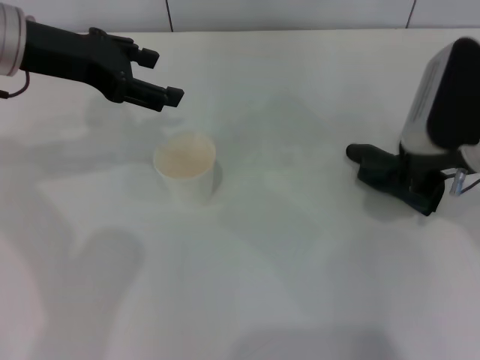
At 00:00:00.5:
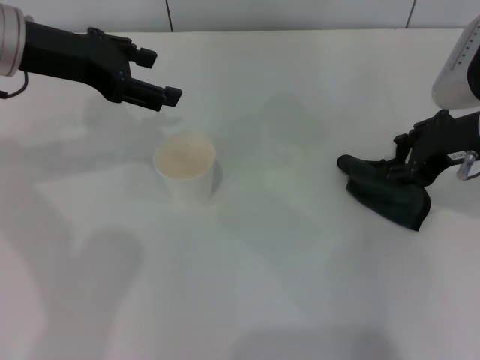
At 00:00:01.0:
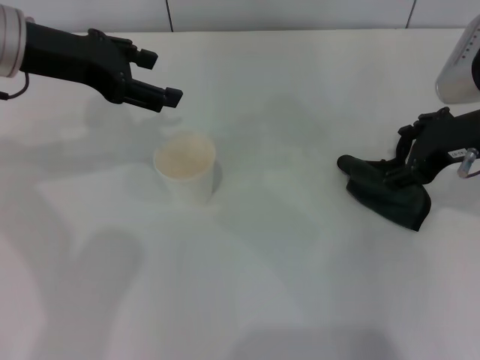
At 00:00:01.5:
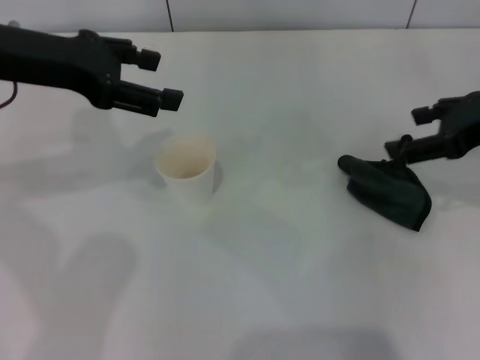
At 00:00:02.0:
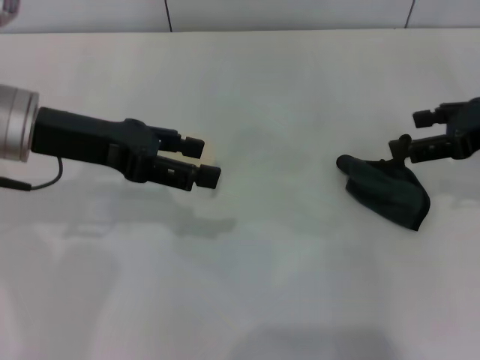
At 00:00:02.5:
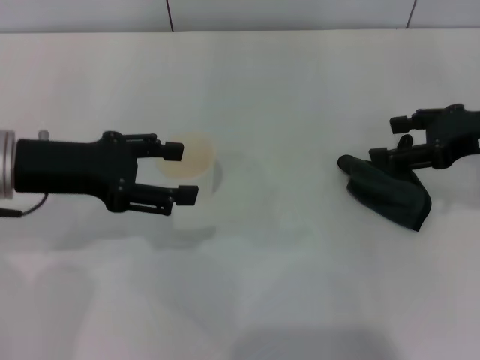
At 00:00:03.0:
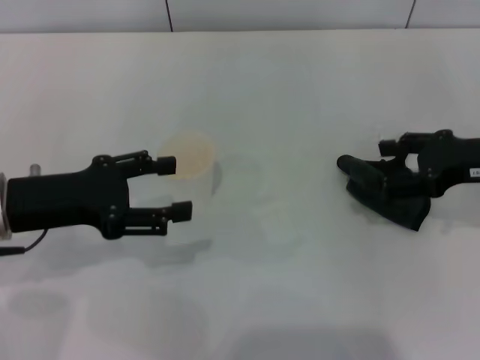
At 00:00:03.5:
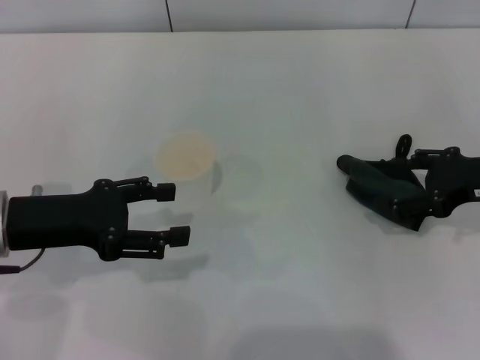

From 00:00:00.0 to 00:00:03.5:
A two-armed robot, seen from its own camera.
Step, from 00:00:00.0 to 00:00:01.5: Place the rag on the table with the right gripper.
From 00:00:00.0 to 00:00:02.0: The right gripper shifts about 10 cm to the right, and opens up. The left gripper changes place by approximately 5 cm.
From 00:00:02.0 to 00:00:03.5: The left gripper travels downward and backward by approximately 10 cm; the right gripper shifts approximately 5 cm downward.

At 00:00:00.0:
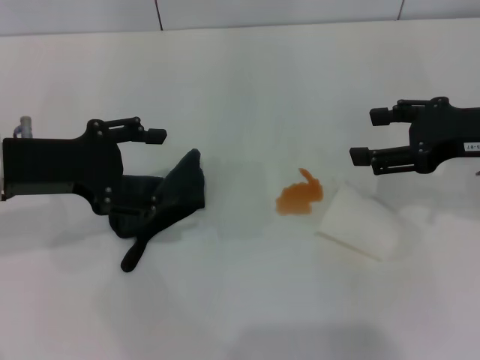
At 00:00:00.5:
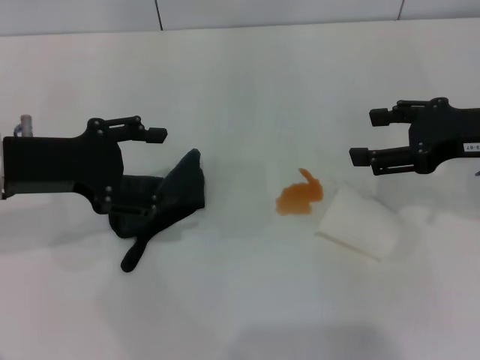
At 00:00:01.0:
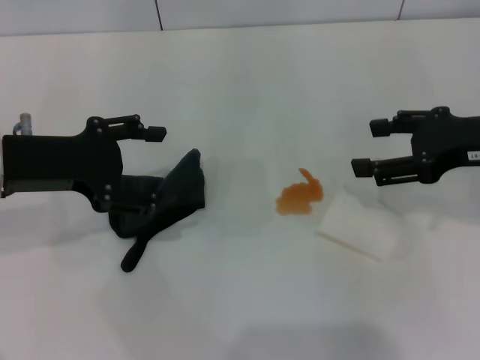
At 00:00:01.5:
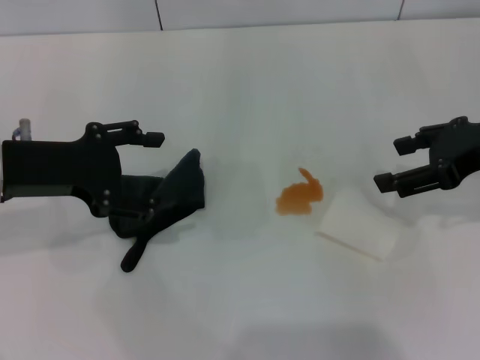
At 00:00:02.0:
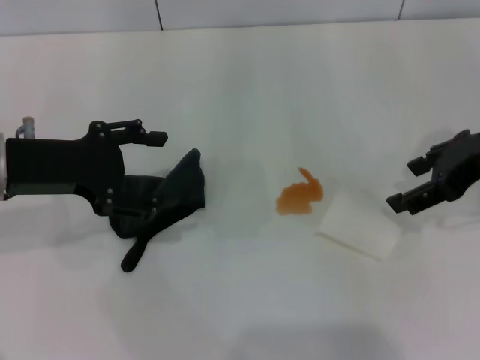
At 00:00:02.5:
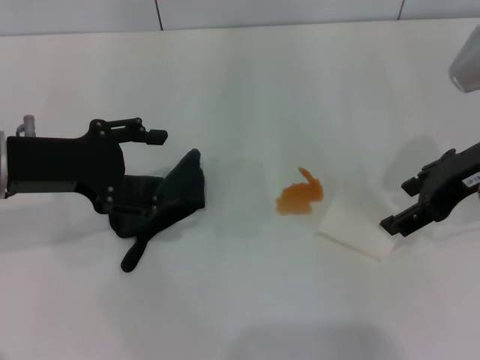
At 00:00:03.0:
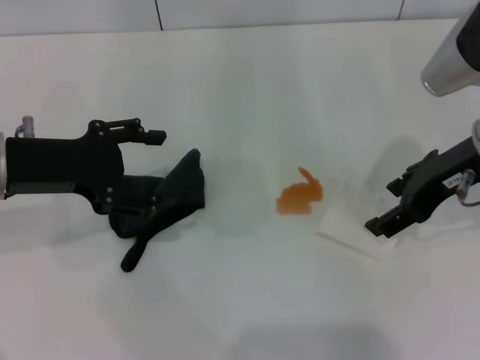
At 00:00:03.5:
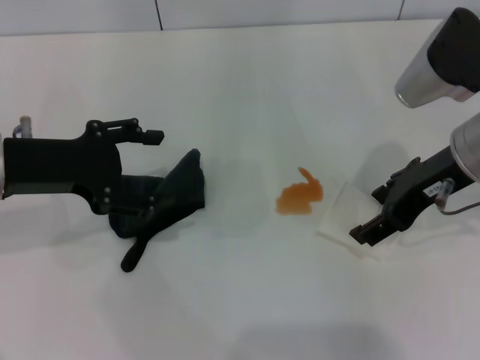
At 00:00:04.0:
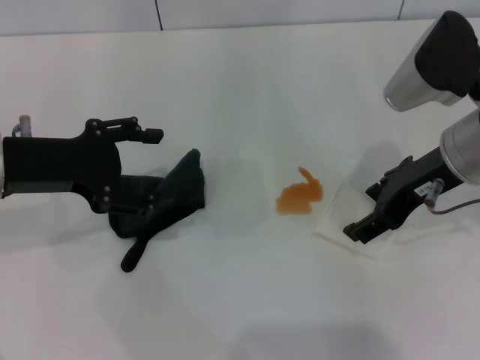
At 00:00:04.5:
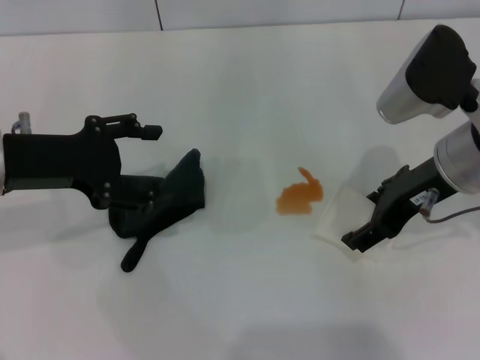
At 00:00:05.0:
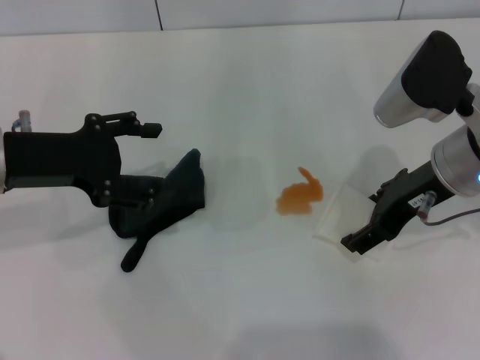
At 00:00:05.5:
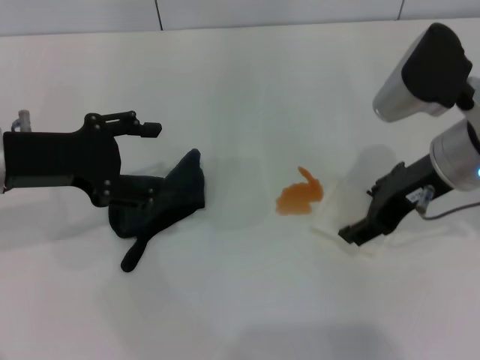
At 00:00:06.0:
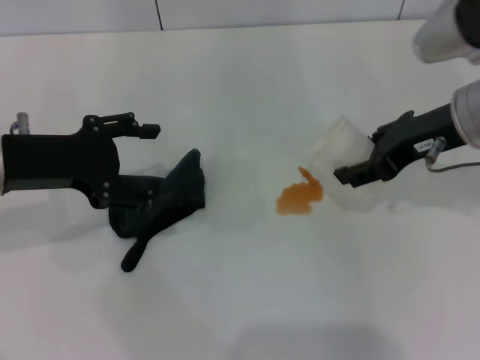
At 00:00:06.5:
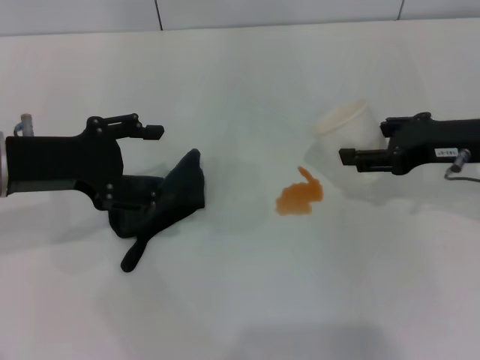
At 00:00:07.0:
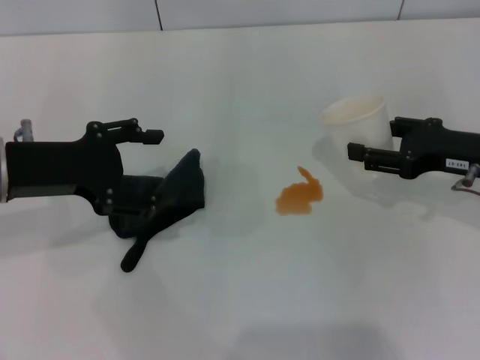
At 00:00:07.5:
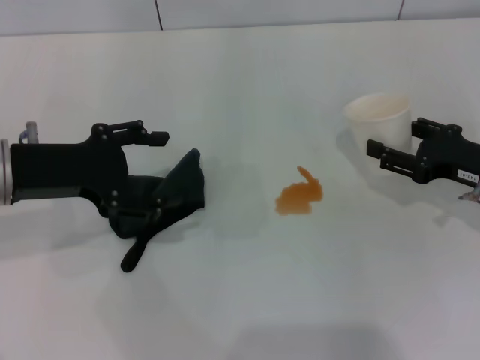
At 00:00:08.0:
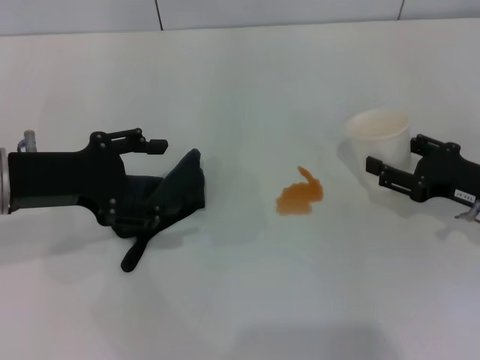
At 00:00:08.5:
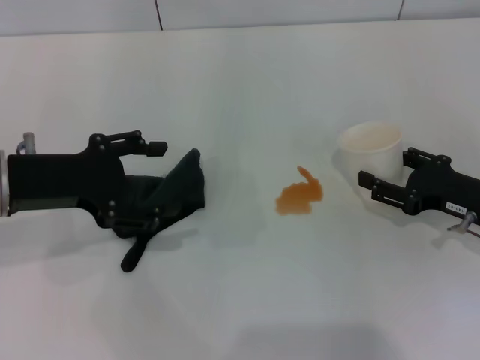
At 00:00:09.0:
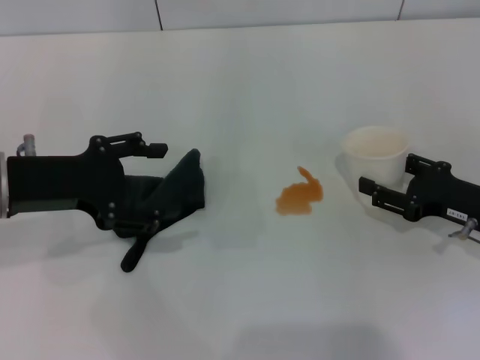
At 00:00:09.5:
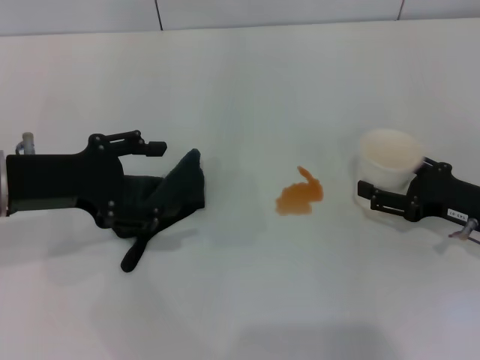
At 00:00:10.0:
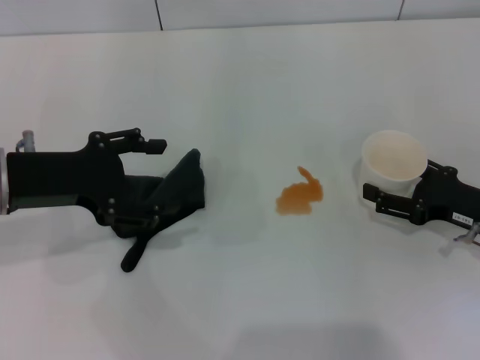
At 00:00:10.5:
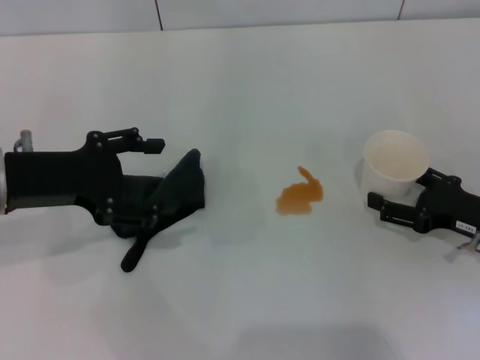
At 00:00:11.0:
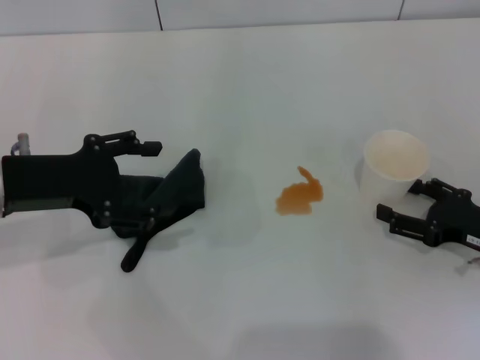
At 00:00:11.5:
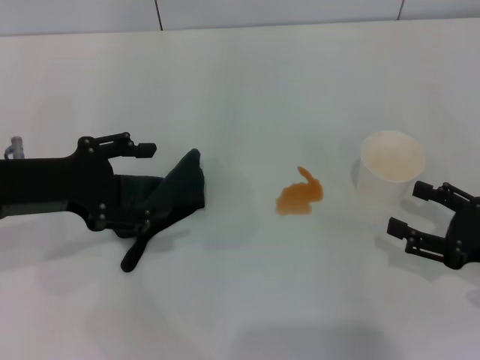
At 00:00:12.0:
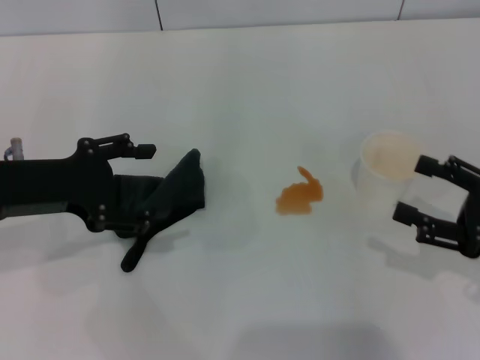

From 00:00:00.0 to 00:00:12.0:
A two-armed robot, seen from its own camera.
Step, from 00:00:00.0 to 00:00:05.0: Grasp the paper cup with the right gripper.
Step, from 00:00:05.5 to 00:00:10.5: Stand the paper cup upright with the right gripper.
From 00:00:02.0 to 00:00:04.0: The right gripper shifts roughly 5 cm to the left.
From 00:00:04.0 to 00:00:06.0: The right gripper closes its fingers.
From 00:00:06.0 to 00:00:08.0: The right gripper heads downward and to the right, covering roughly 15 cm.
From 00:00:08.0 to 00:00:10.0: The right gripper opens up.
From 00:00:10.0 to 00:00:12.0: The right gripper moves backward and upward, roughly 10 cm.

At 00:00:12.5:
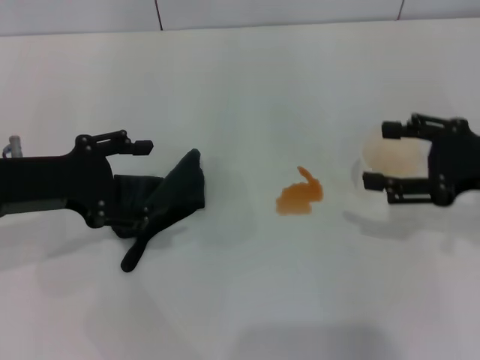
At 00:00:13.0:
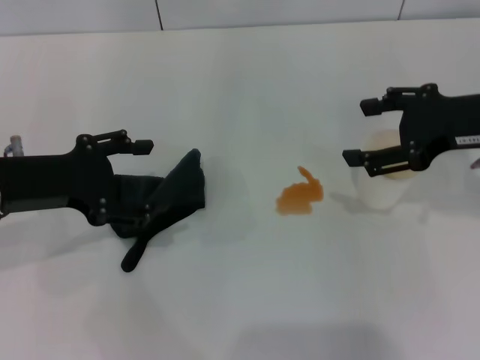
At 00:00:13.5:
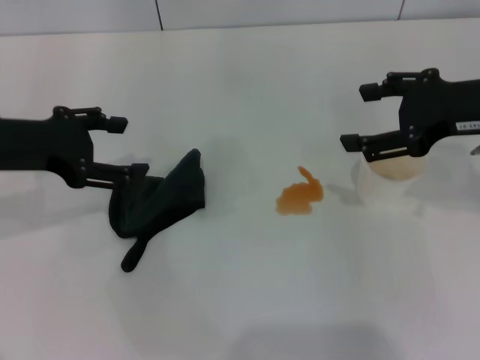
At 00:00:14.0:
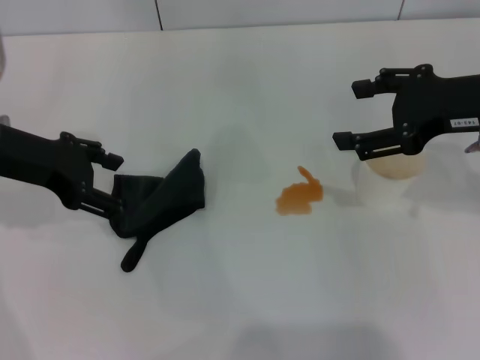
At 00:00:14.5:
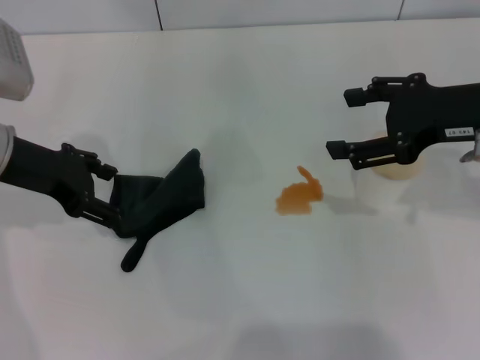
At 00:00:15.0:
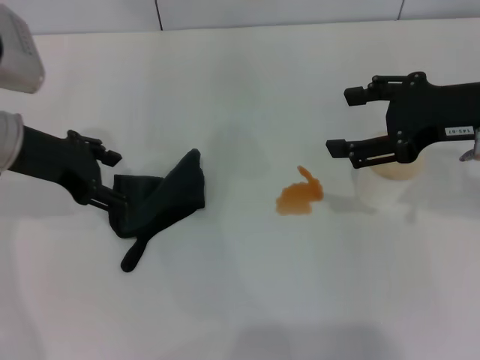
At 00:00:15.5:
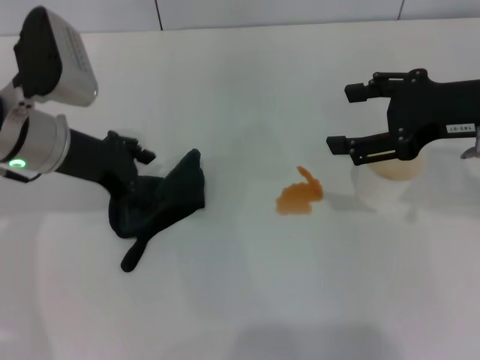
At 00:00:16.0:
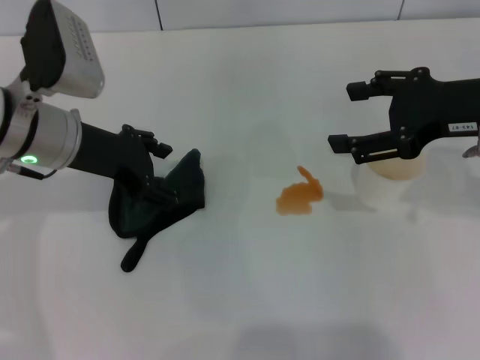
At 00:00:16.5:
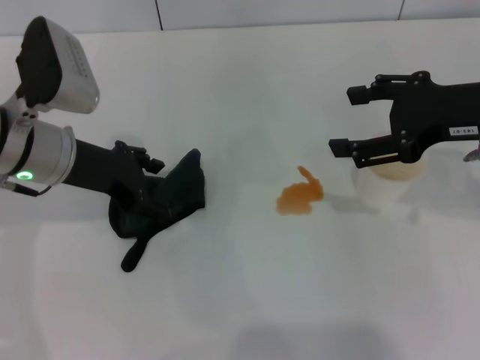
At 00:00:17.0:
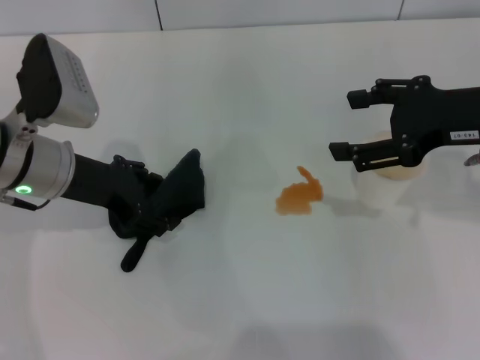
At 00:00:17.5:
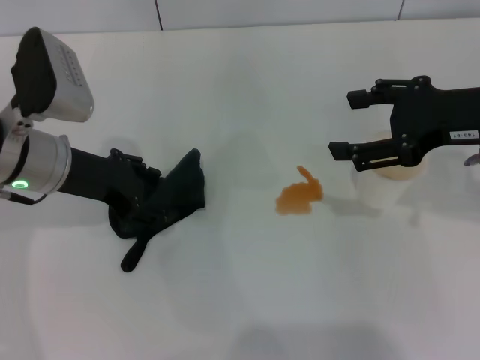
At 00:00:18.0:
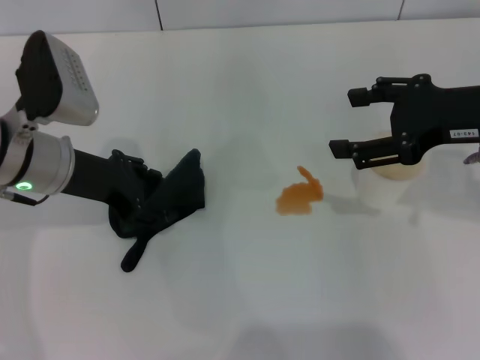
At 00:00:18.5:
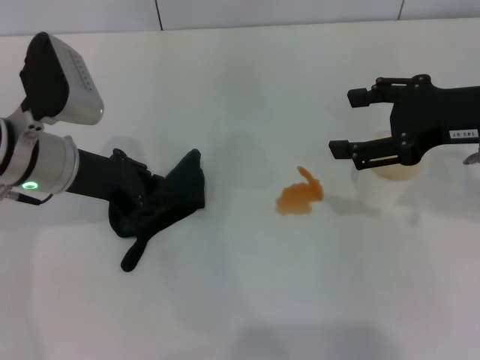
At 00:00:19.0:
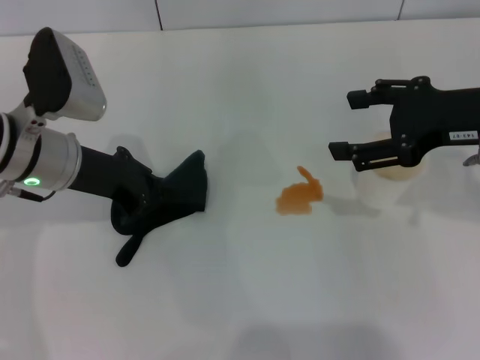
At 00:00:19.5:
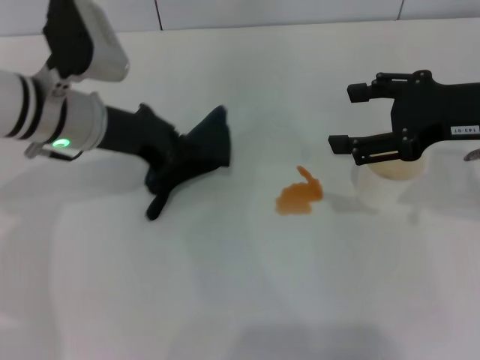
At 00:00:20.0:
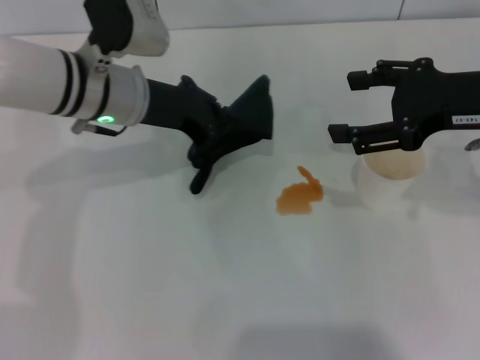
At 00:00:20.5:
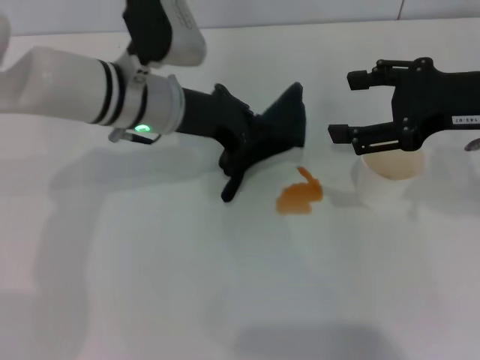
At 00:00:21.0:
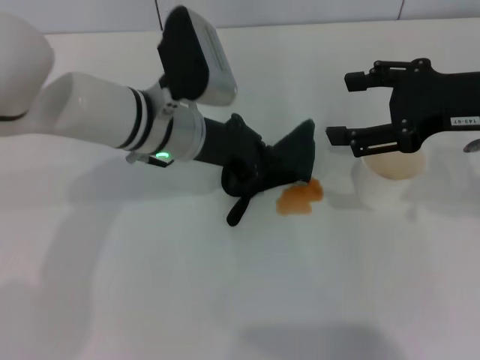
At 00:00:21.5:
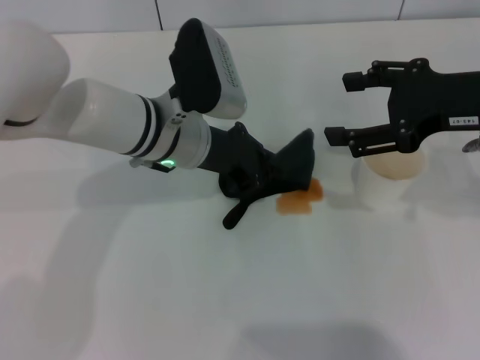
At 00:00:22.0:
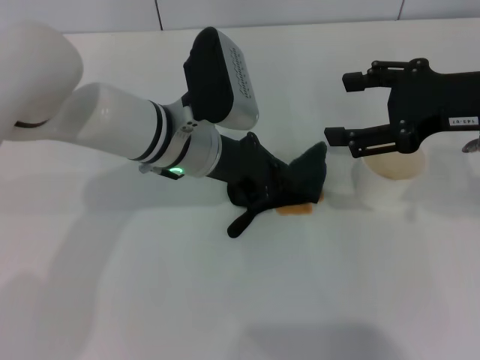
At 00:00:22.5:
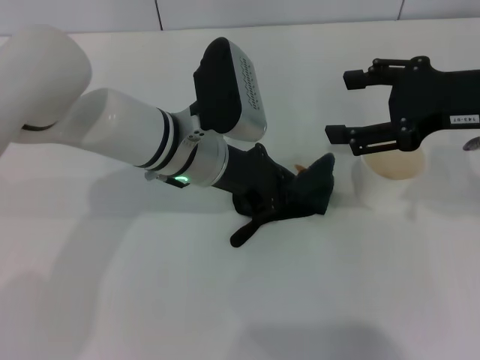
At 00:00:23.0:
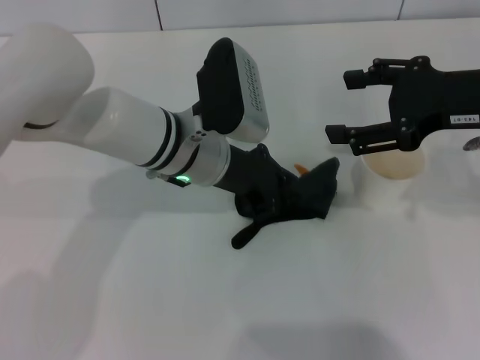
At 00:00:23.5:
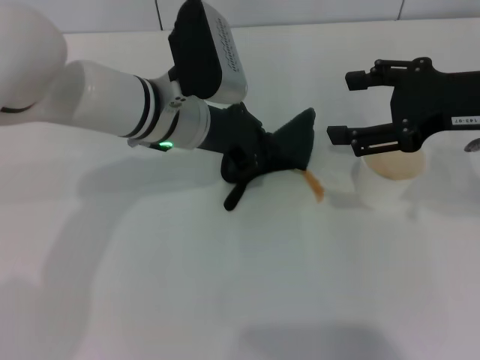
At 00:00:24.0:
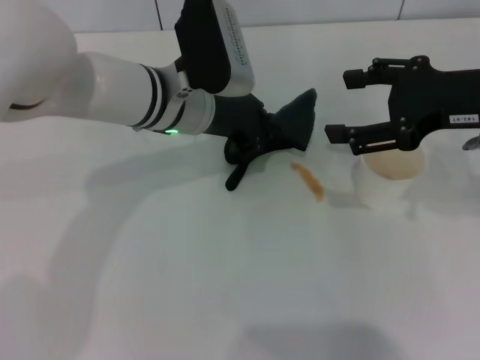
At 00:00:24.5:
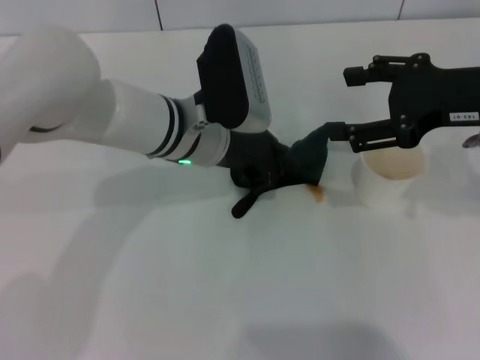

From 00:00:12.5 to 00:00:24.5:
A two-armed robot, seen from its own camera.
Step, from 00:00:12.5 to 00:00:19.0: Grasp the rag with the left gripper.
From 00:00:12.5 to 00:00:14.5: The right gripper is displaced upward by some 5 cm. The left gripper moves forward, about 5 cm.
From 00:00:14.5 to 00:00:16.5: The left gripper shifts by approximately 5 cm.
From 00:00:16.5 to 00:00:18.5: The grippers move only a little.
From 00:00:18.5 to 00:00:20.5: The left gripper heads to the right, covering roughly 10 cm, and closes.
From 00:00:20.5 to 00:00:22.5: The left gripper ends up approximately 5 cm from where it was.
From 00:00:22.5 to 00:00:24.5: There are only small adjustments of the grippers.
